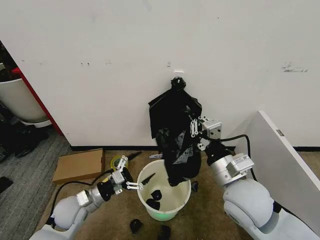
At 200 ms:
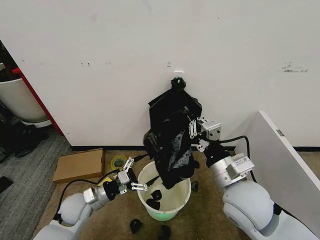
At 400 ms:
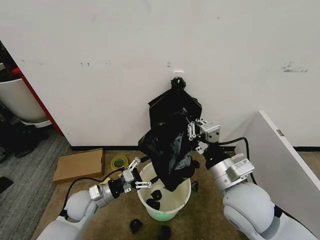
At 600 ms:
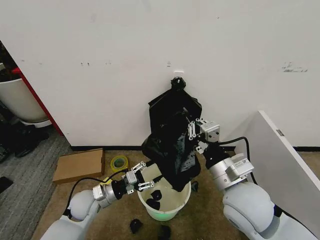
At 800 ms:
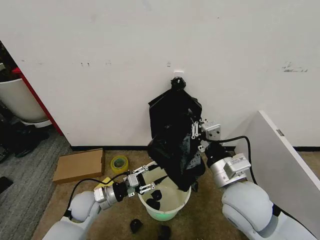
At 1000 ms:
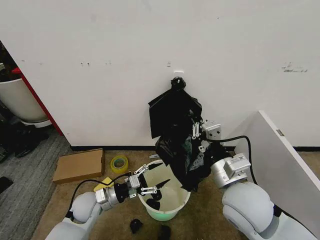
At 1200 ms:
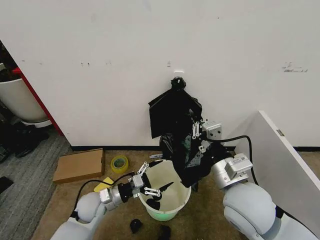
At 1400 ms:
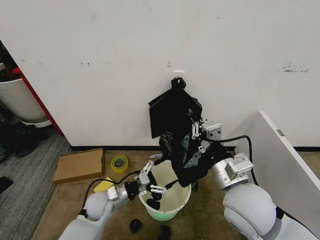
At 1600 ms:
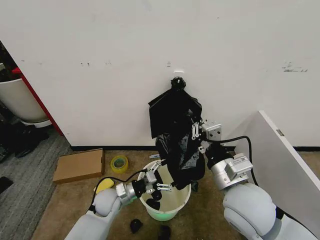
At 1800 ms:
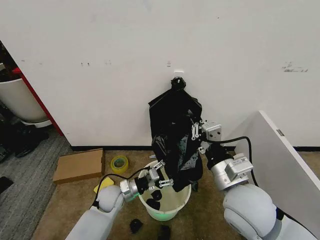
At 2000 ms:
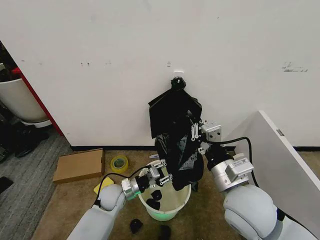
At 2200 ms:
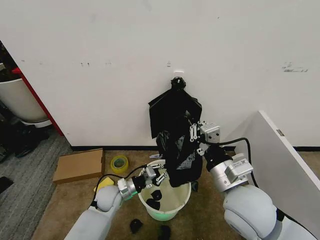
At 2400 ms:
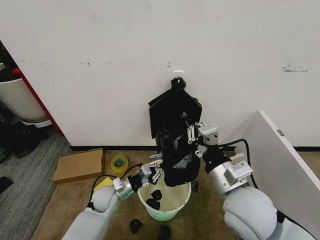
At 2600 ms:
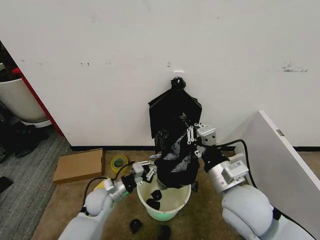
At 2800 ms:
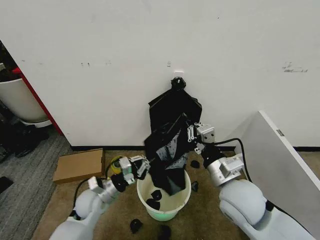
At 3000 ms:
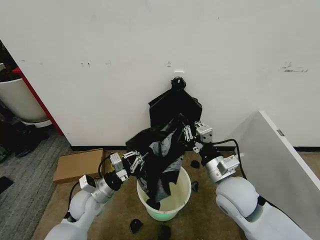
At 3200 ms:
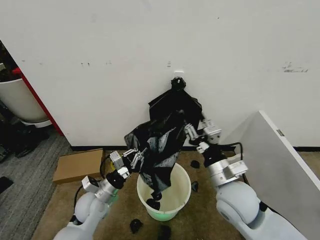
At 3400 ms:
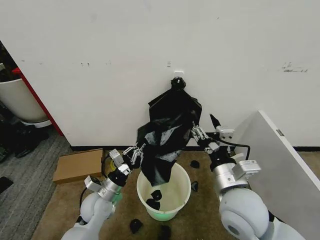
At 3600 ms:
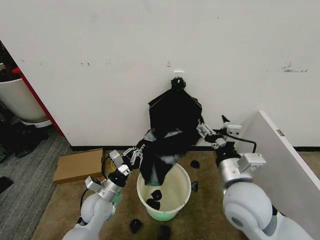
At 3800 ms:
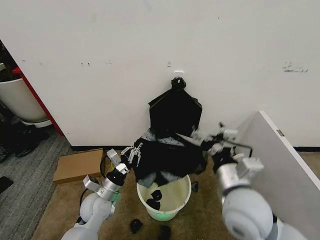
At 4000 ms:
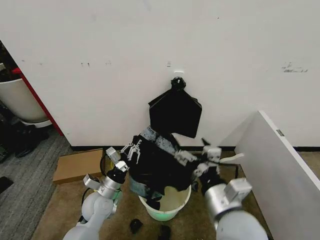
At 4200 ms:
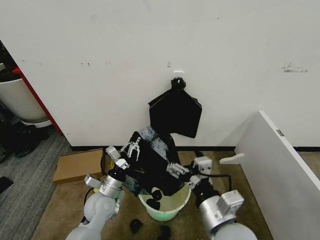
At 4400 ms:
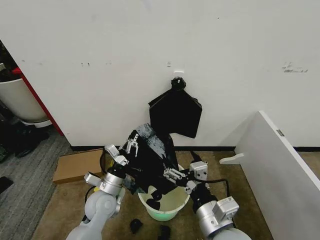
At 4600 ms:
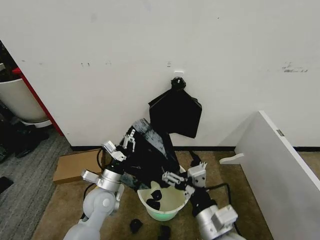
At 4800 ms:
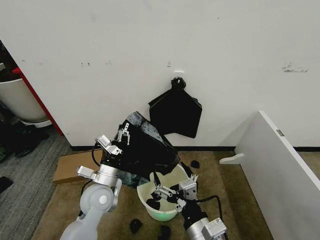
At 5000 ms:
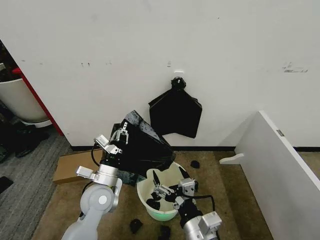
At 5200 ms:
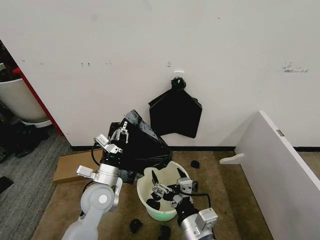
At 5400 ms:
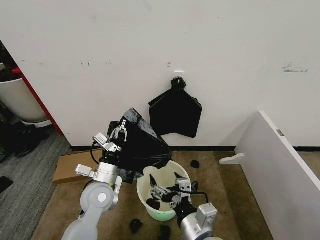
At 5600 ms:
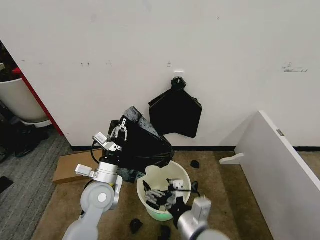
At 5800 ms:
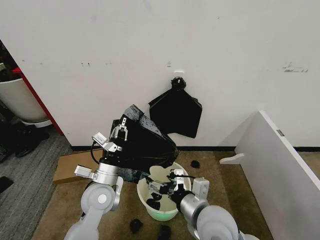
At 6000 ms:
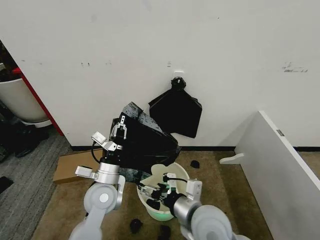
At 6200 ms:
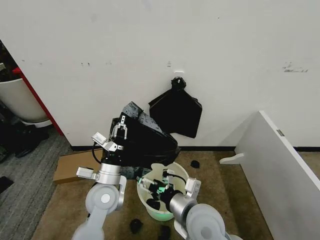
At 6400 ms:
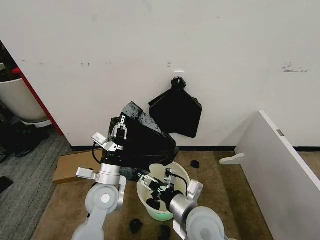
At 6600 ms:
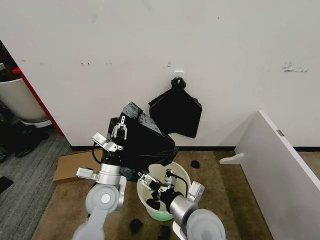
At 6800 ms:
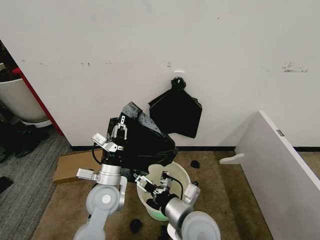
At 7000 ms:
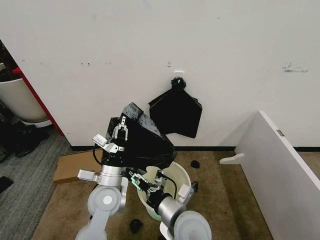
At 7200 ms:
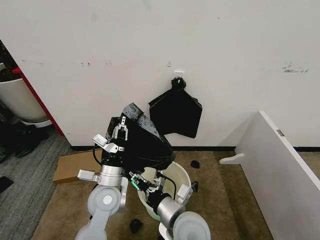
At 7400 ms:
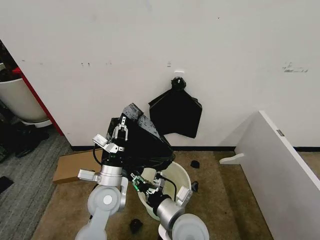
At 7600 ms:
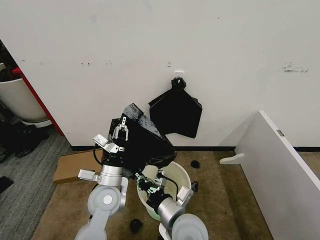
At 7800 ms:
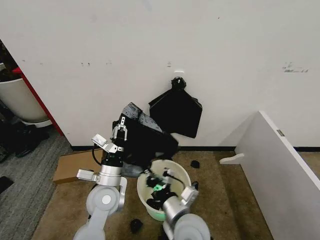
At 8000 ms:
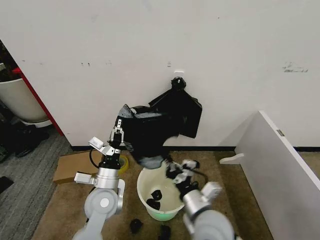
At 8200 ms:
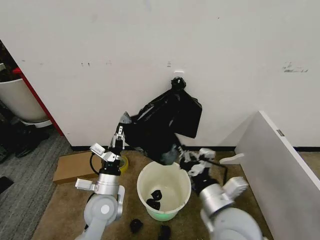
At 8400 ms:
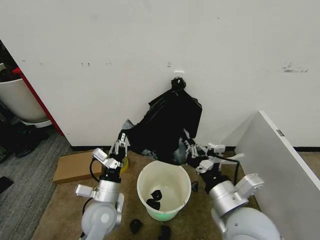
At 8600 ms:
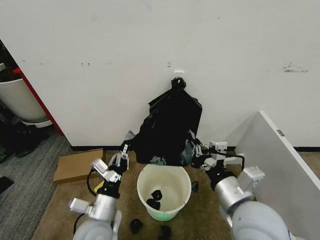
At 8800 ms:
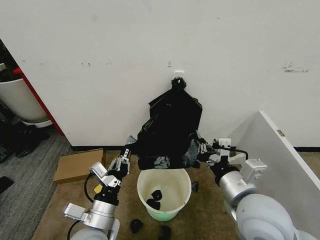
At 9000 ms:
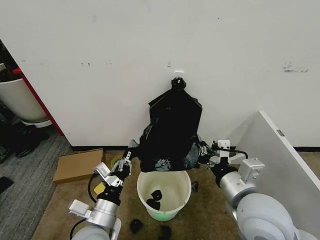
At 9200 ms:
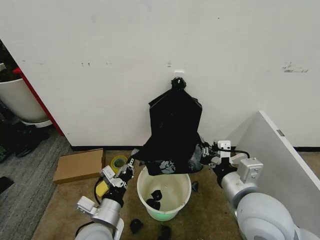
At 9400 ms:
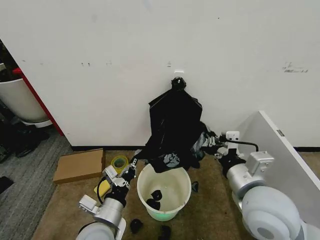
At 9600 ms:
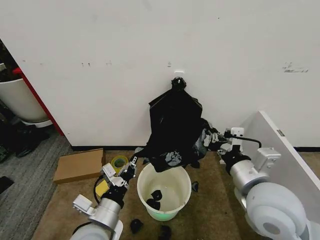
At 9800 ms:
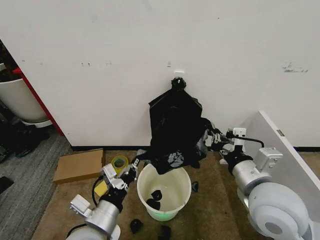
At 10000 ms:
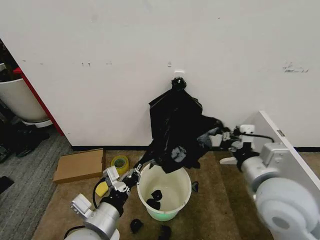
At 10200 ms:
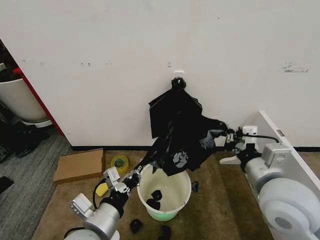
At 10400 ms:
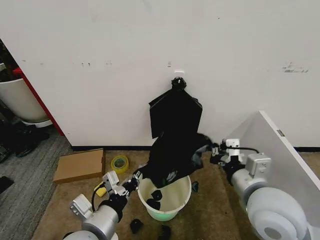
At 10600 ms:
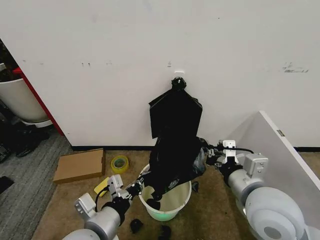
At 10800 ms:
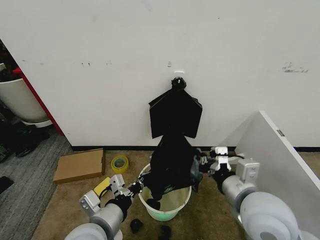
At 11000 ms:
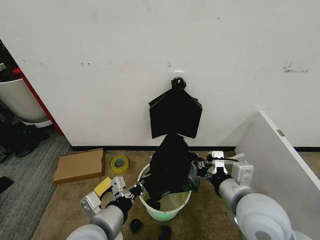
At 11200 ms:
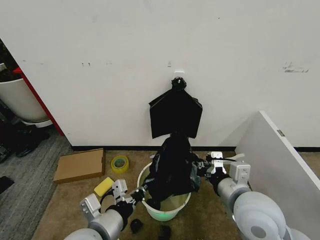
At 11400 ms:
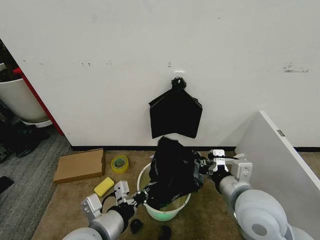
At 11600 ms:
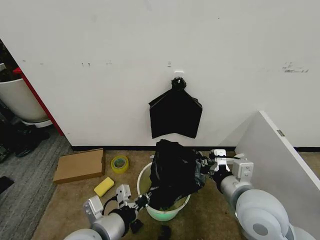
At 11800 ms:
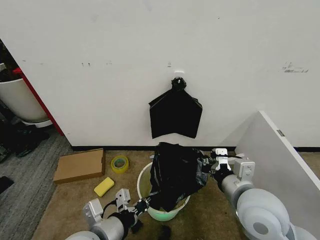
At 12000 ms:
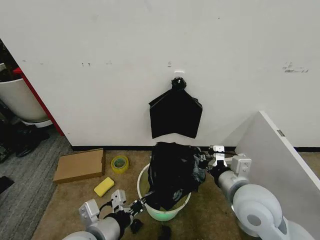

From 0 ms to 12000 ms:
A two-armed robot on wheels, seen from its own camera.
Task of the whole recording: Place the garbage bag over the trash bin.
From 0 ms to 1600 ms: The left gripper moves to the right and downward, some 10 cm.
From 1600 ms to 3000 ms: The left gripper shifts roughly 10 cm upward and to the left, and closes. Meanwhile the right gripper goes roughly 5 cm downward.
From 3000 ms to 4400 ms: The right gripper heads backward, covering roughly 10 cm, and opens up.
From 4400 ms to 6000 ms: The right gripper heads forward, covering about 5 cm. The left gripper heads upward, covering roughly 5 cm.
From 6000 ms to 7600 ms: The right gripper heads to the left, covering about 5 cm, and closes up.
From 7600 ms to 9000 ms: The left gripper moves backward, about 10 cm. The right gripper travels upward and to the right by some 20 cm.
From 9000 ms to 10400 ms: The left gripper goes approximately 5 cm upward.

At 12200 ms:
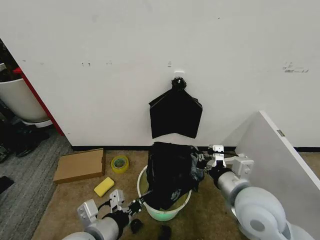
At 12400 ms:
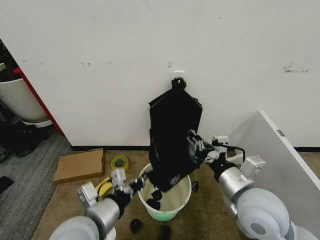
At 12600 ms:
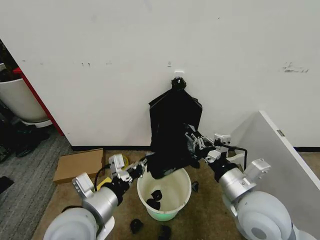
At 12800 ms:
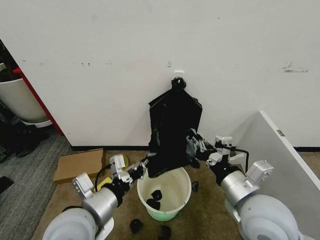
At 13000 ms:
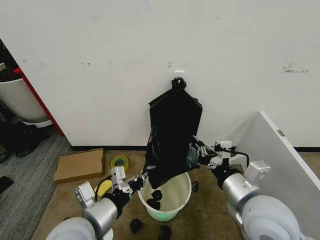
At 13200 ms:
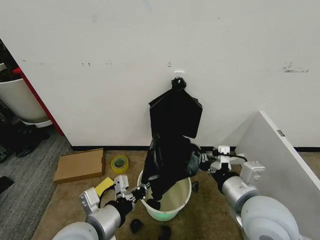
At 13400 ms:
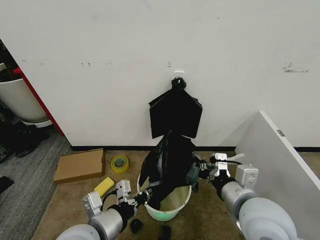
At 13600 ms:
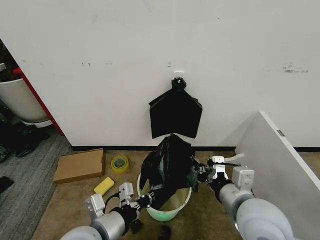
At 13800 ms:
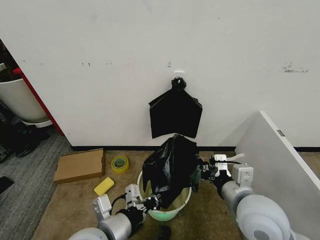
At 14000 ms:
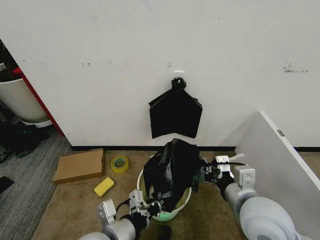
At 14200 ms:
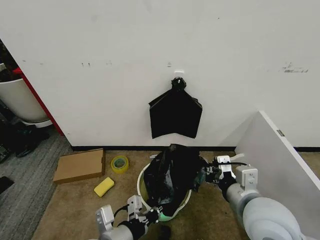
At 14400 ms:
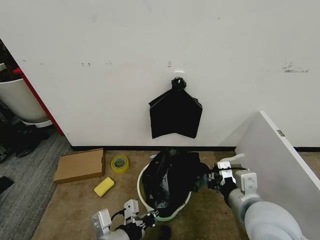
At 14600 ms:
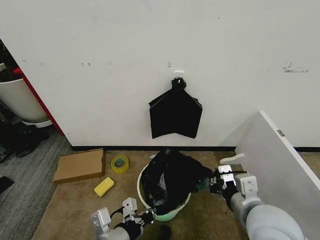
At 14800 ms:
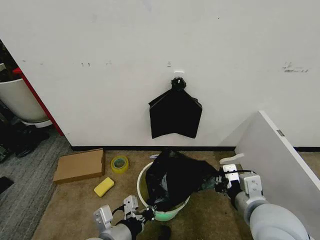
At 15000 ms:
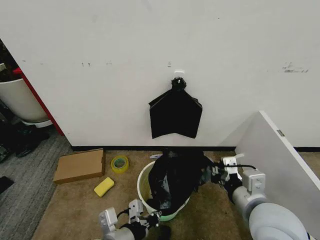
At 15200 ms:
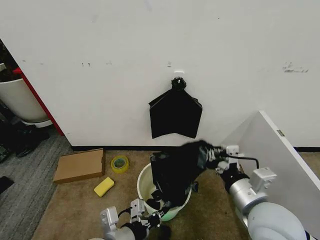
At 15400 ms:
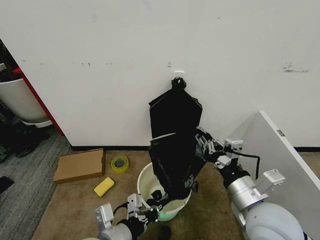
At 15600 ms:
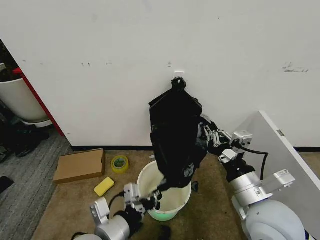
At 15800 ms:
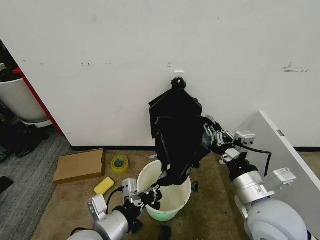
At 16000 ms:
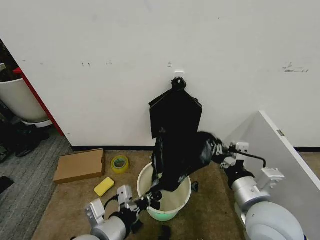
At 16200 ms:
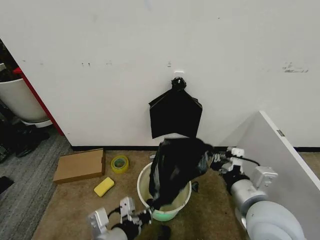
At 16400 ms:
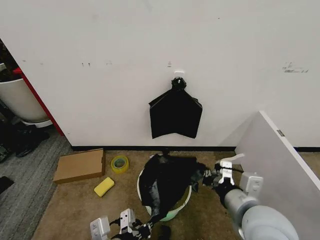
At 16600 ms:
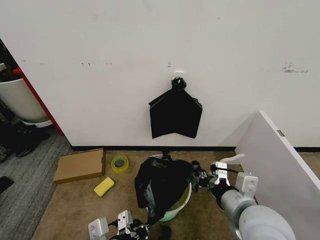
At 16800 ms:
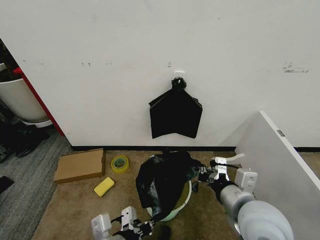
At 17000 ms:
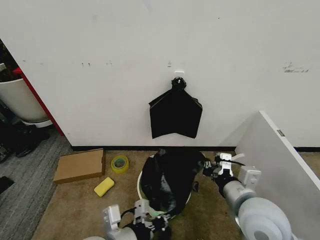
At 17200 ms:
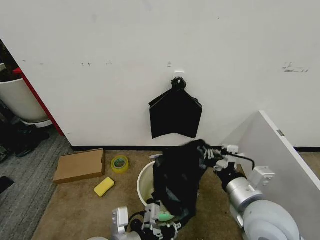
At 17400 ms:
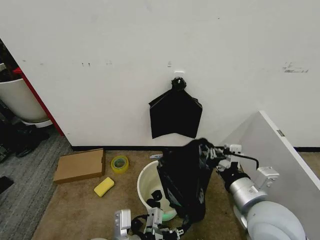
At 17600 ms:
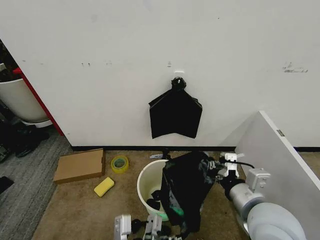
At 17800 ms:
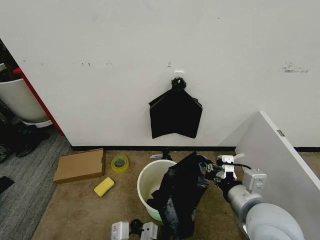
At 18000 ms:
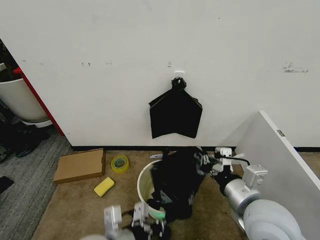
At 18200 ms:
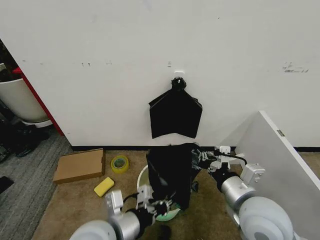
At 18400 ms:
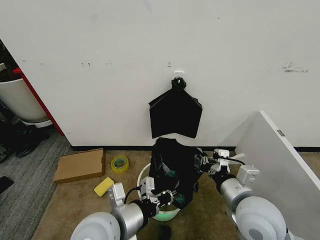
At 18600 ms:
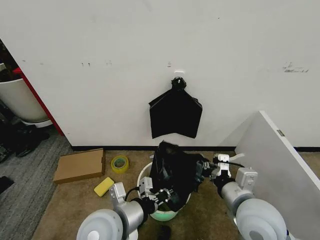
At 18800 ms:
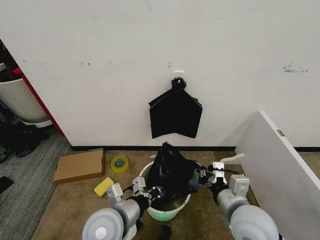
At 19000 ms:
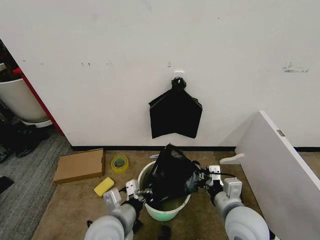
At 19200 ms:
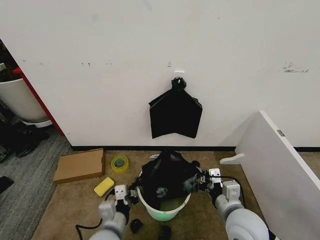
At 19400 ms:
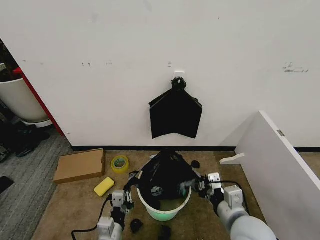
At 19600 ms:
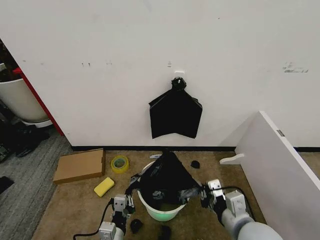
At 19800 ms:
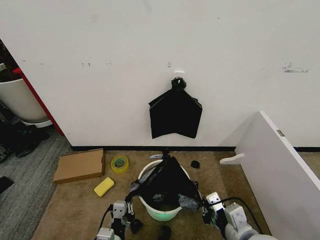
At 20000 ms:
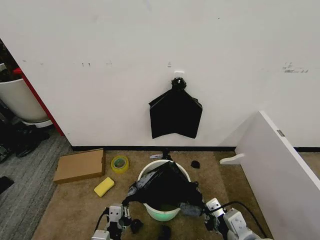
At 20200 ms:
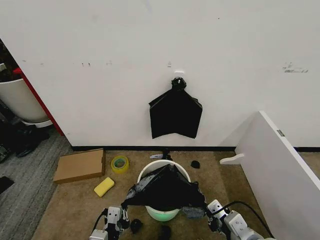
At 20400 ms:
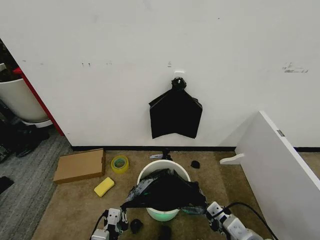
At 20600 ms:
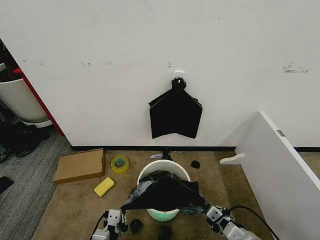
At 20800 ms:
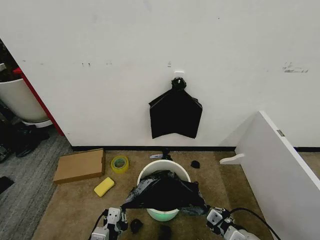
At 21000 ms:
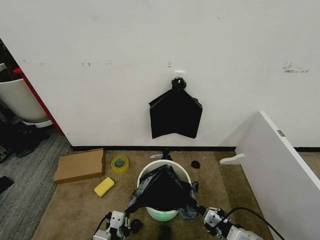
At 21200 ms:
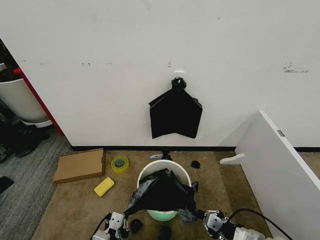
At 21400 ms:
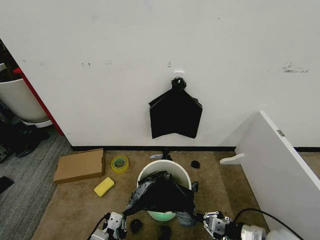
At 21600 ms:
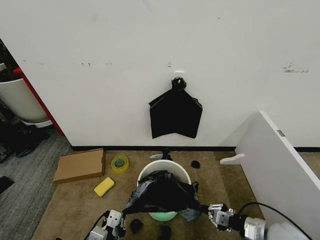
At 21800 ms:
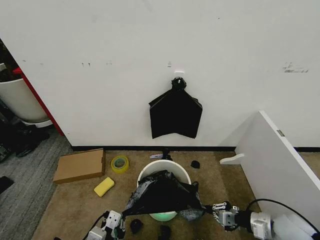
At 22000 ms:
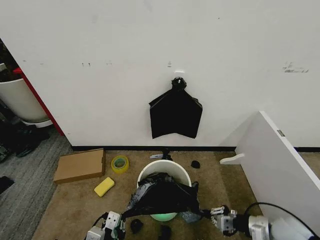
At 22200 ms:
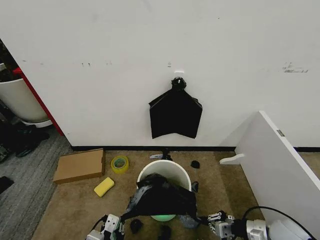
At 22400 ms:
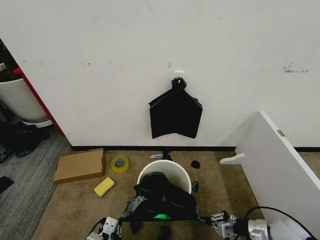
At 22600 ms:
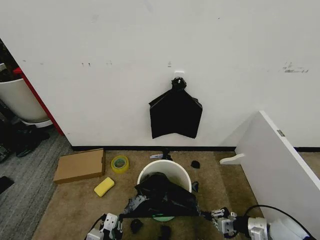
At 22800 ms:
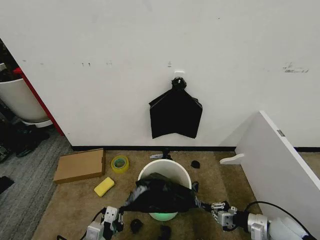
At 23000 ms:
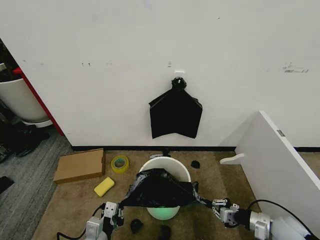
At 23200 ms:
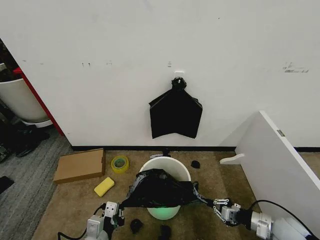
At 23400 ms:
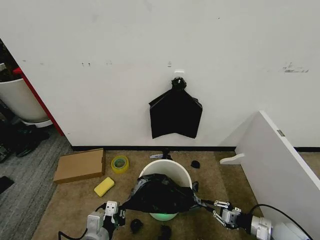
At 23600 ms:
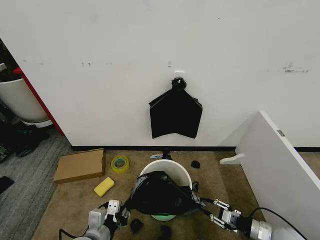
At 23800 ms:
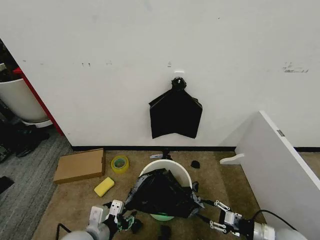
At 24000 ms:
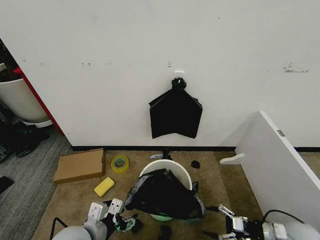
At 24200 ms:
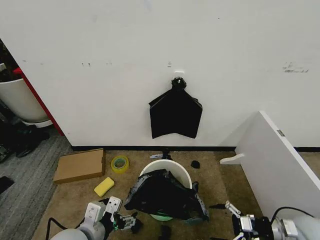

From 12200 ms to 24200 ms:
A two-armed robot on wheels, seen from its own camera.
Task of the whole recording: Place the garbage bag over the trash bin.
From 16600 ms to 18200 ms: The left gripper ends up about 5 cm from where it was.
From 18200 ms to 19800 ms: The left gripper goes about 20 cm downward. The right gripper heads downward and backward, covering approximately 10 cm.
From 19800 ms to 21200 ms: The right gripper goes roughly 10 cm downward and to the right.
From 21200 ms to 22600 ms: The right gripper moves to the right, forward and downward, some 10 cm.
From 22600 ms to 24200 ms: The left gripper goes about 10 cm upward, and opens its fingers. Meanwhile the right gripper shifts about 5 cm to the right, and opens up.
